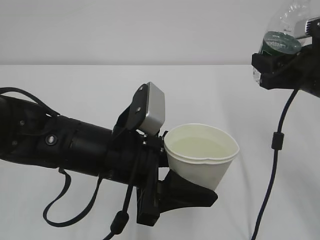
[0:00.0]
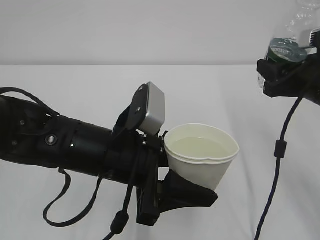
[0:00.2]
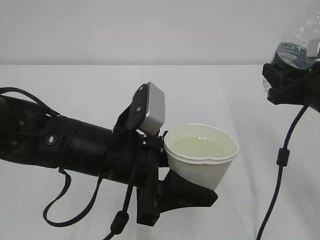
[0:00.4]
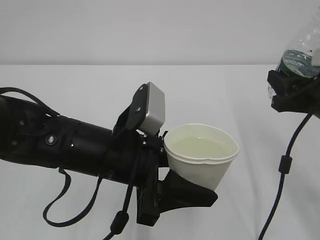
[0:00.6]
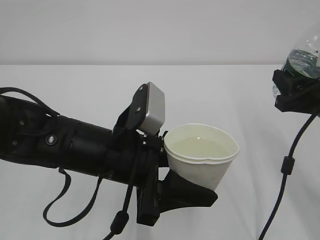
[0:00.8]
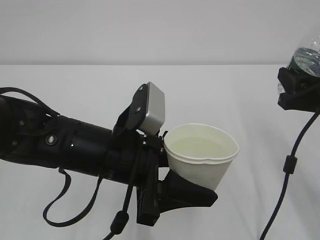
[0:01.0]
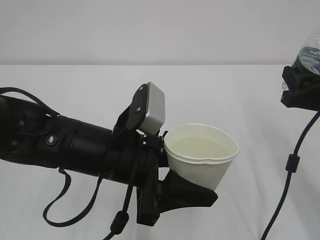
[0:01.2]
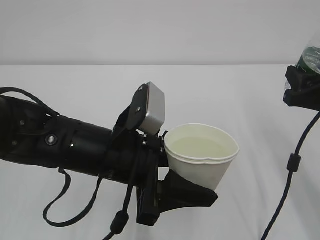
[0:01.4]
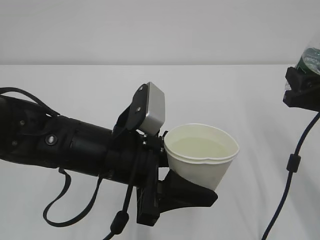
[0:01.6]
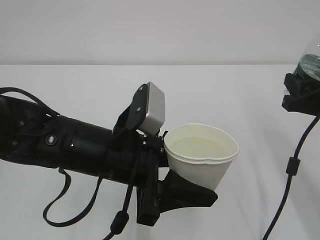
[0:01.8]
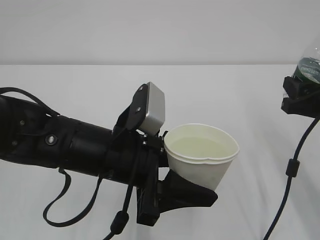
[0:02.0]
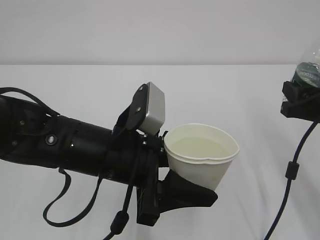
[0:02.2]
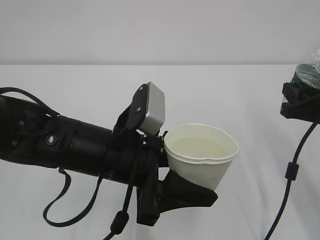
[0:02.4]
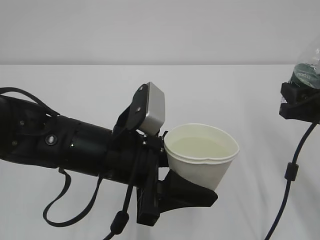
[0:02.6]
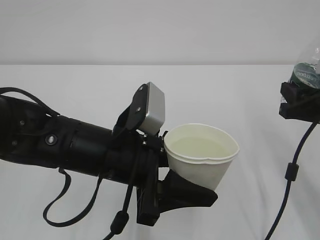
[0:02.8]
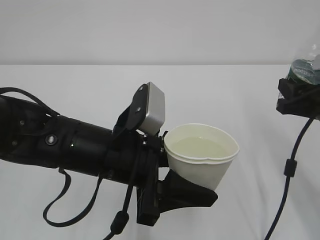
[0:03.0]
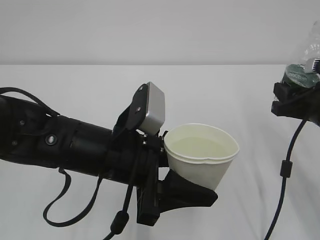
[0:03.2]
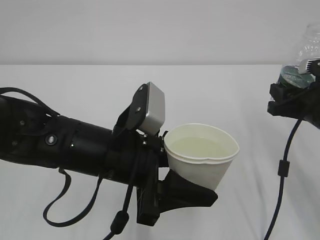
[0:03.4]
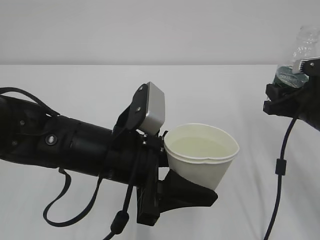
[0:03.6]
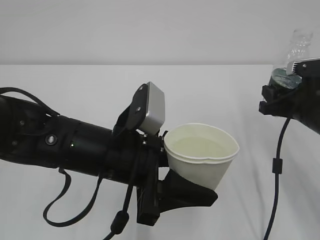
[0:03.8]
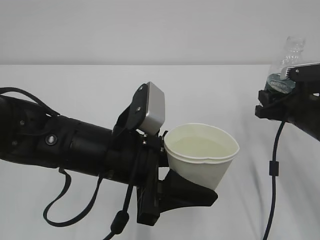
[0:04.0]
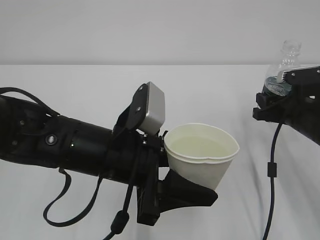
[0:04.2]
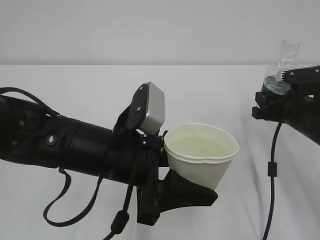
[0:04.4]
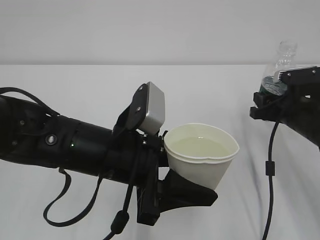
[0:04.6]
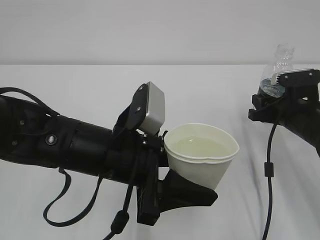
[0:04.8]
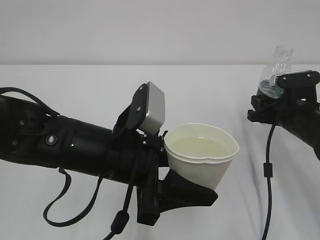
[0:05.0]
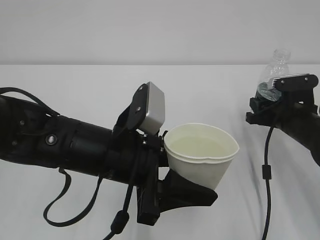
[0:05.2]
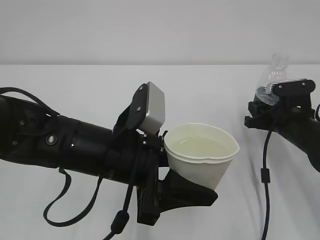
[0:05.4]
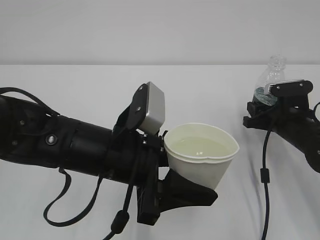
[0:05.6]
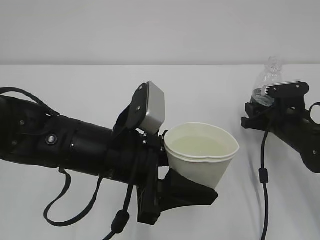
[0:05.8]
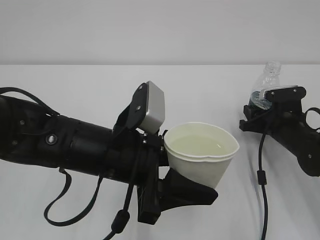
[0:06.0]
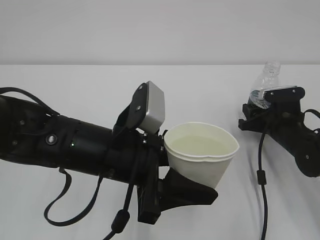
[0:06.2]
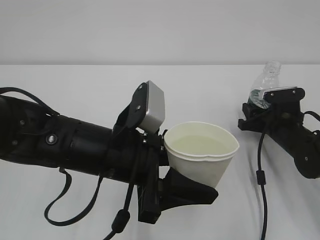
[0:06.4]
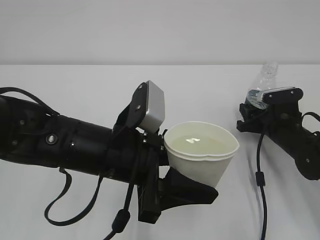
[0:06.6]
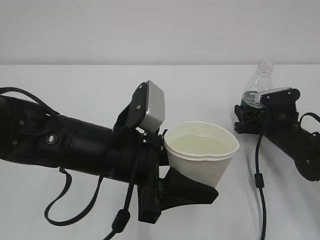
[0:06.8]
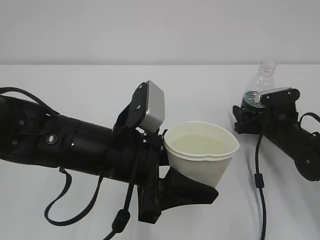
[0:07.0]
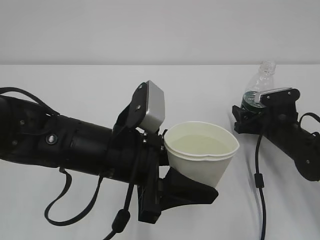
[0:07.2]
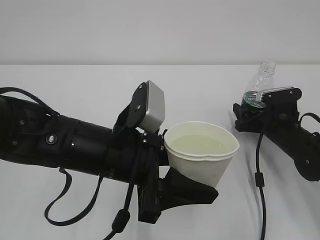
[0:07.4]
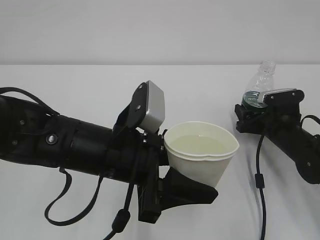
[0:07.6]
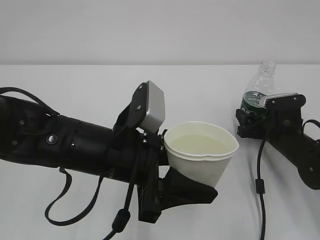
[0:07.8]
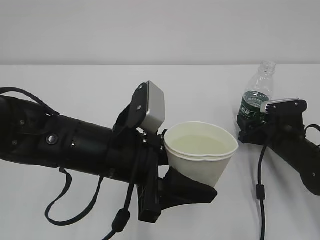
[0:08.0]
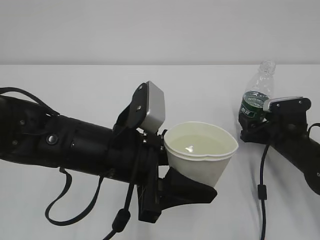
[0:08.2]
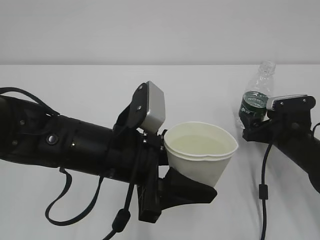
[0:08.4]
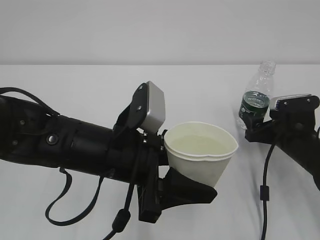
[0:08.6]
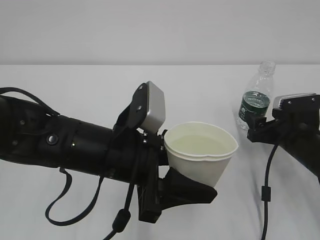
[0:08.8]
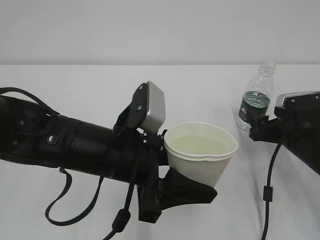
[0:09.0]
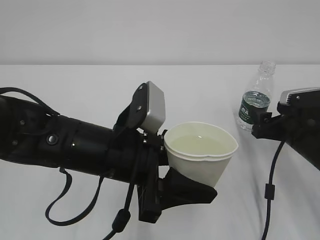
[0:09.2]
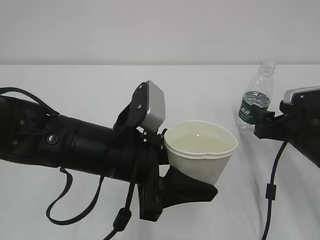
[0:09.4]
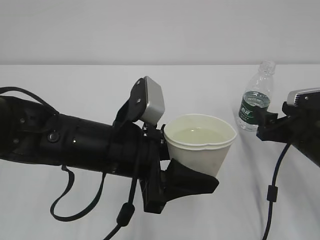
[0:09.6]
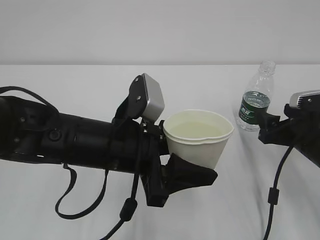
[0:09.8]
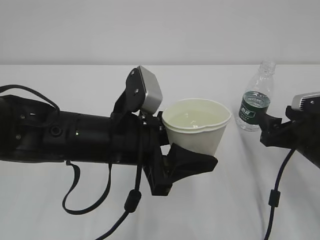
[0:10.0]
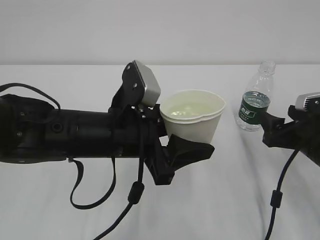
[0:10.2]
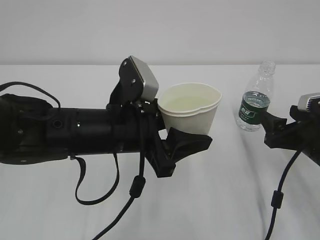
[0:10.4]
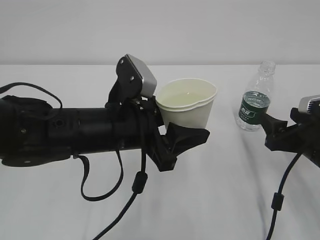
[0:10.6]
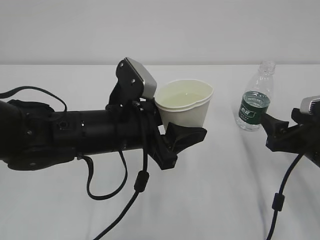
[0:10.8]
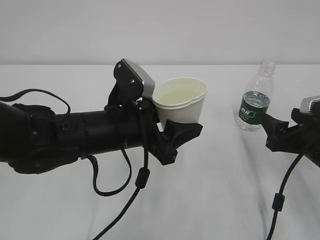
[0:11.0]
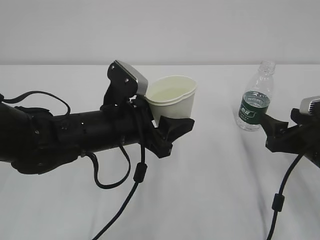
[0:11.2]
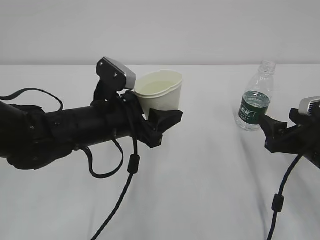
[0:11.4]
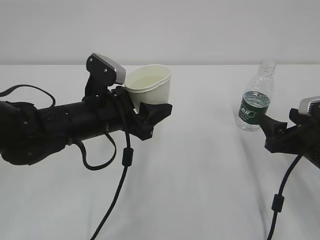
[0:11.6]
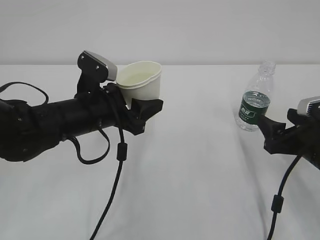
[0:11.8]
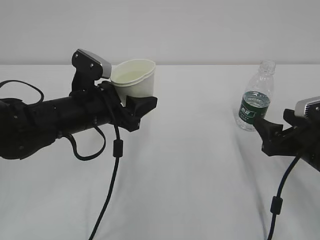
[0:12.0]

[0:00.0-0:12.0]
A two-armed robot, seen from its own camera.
0:00.0 to 0:01.6: The right gripper ends up roughly 5 cm from where it was.
0:01.6 to 0:03.0: The grippers move only a little.
0:03.0 to 0:04.4: The right gripper is displaced forward and downward by about 10 cm.
0:04.4 to 0:06.0: The right gripper is displaced downward by roughly 5 cm.
0:06.0 to 0:07.6: The right gripper opens up.
0:07.6 to 0:09.0: The right gripper moves backward, some 5 cm.
0:09.0 to 0:10.4: The right gripper moves some 5 cm.
0:10.4 to 0:12.0: The left gripper shifts about 10 cm forward and to the left.

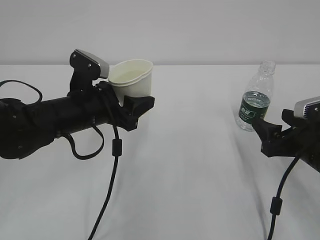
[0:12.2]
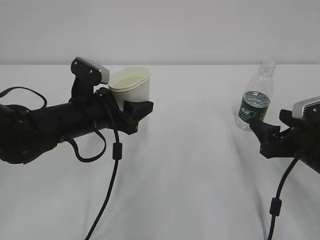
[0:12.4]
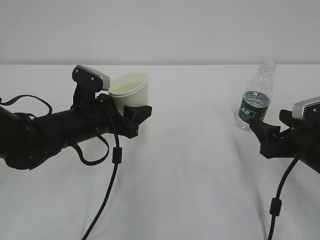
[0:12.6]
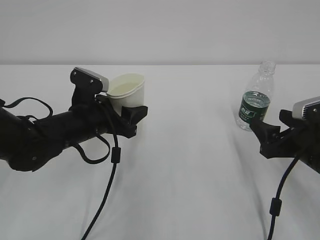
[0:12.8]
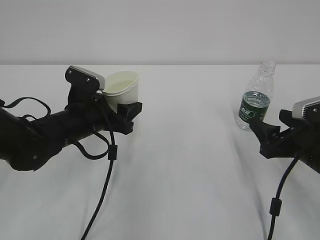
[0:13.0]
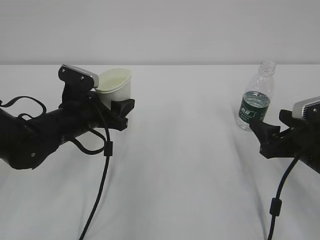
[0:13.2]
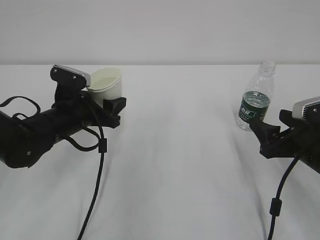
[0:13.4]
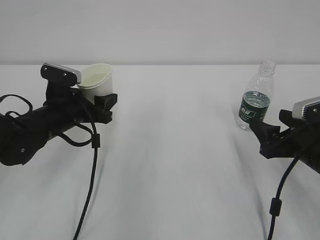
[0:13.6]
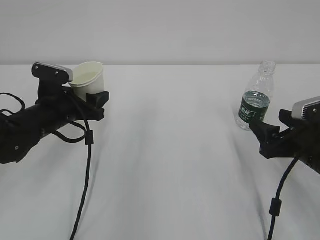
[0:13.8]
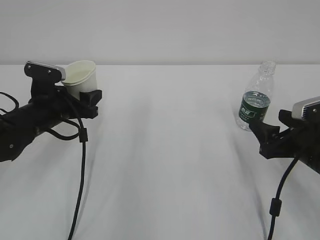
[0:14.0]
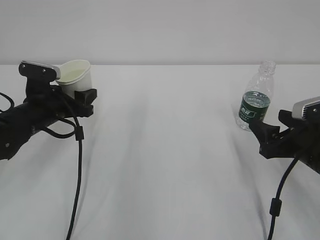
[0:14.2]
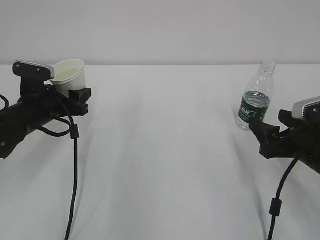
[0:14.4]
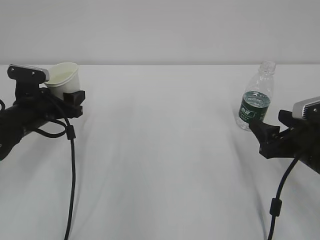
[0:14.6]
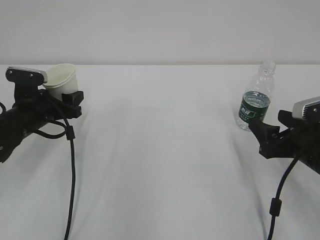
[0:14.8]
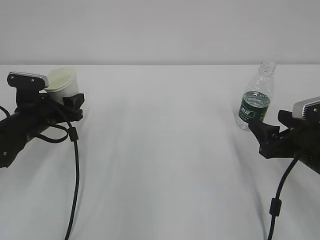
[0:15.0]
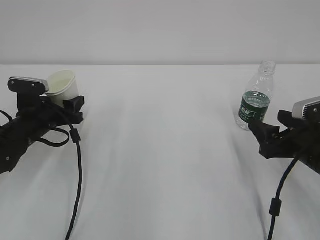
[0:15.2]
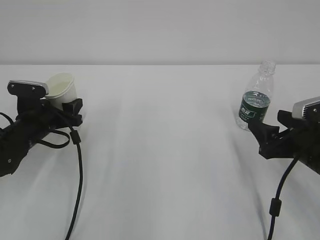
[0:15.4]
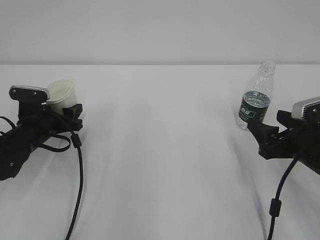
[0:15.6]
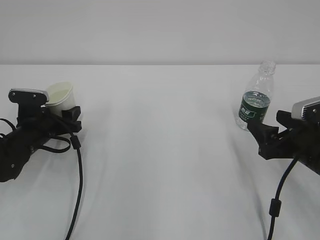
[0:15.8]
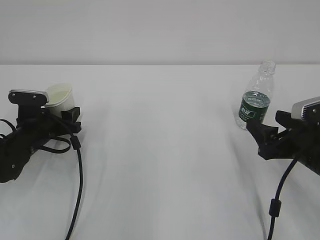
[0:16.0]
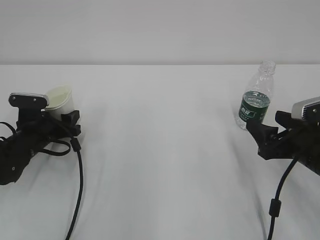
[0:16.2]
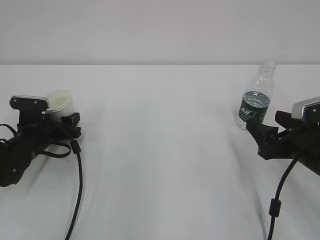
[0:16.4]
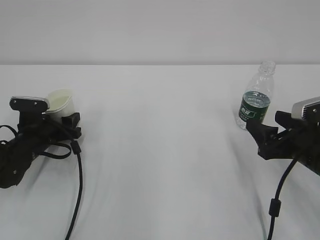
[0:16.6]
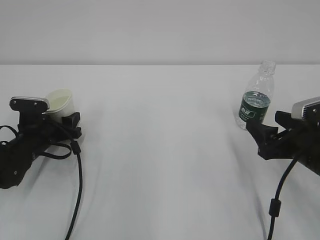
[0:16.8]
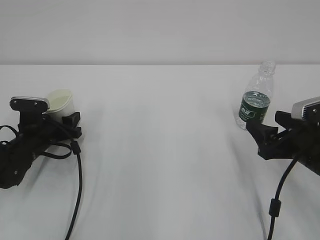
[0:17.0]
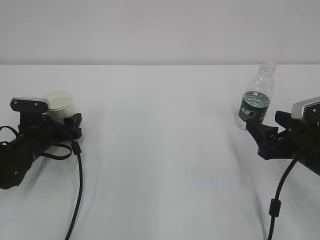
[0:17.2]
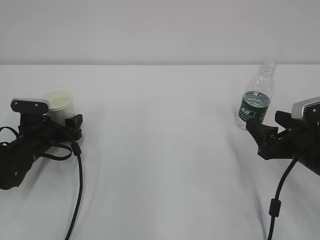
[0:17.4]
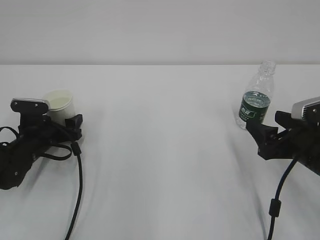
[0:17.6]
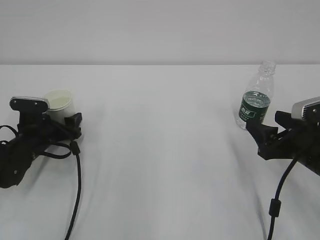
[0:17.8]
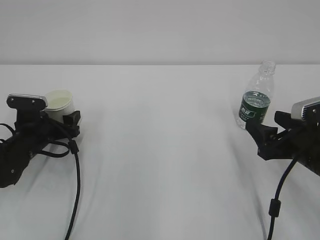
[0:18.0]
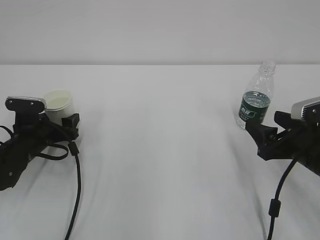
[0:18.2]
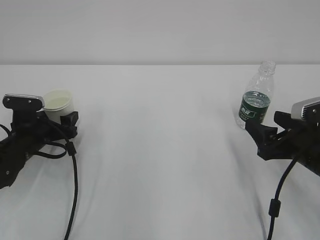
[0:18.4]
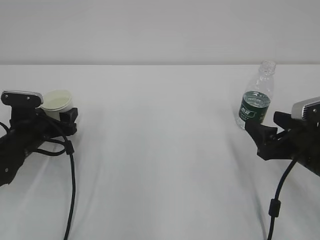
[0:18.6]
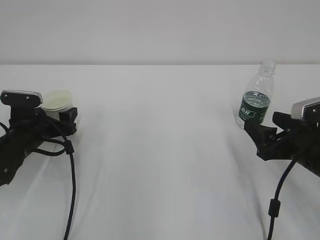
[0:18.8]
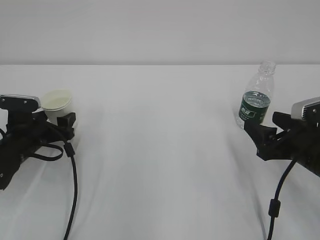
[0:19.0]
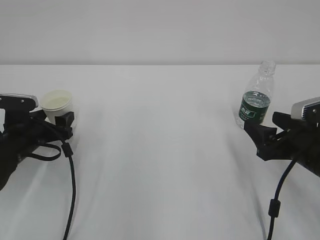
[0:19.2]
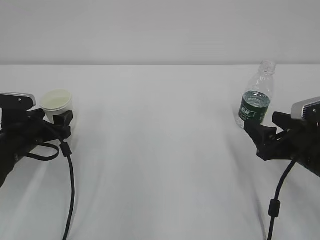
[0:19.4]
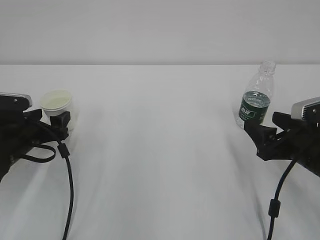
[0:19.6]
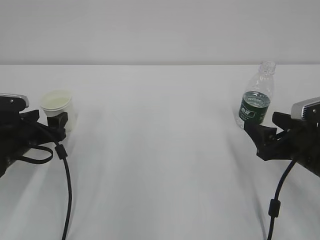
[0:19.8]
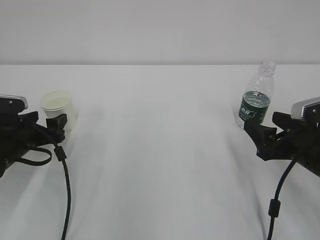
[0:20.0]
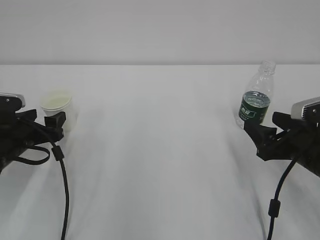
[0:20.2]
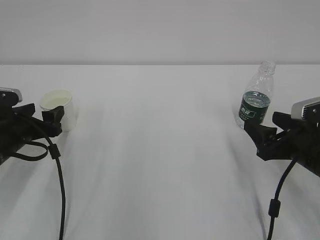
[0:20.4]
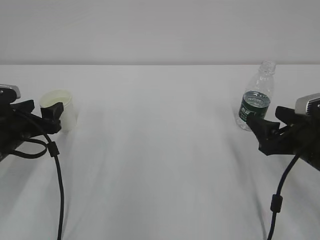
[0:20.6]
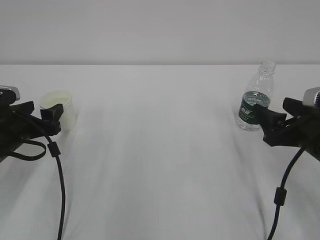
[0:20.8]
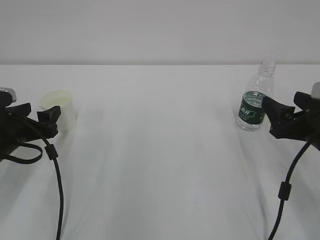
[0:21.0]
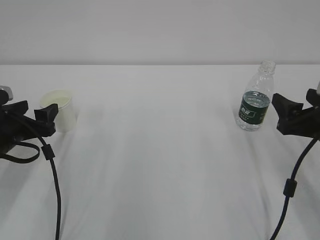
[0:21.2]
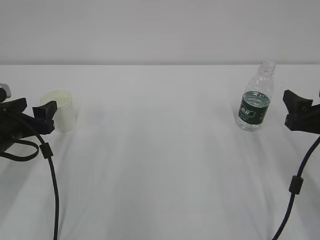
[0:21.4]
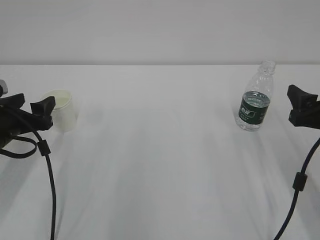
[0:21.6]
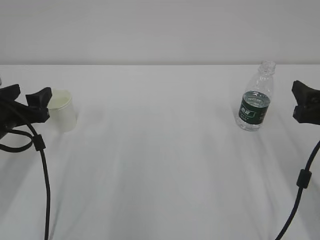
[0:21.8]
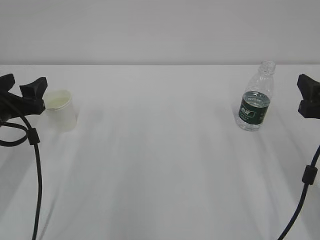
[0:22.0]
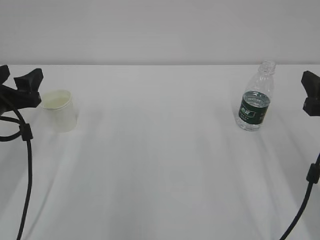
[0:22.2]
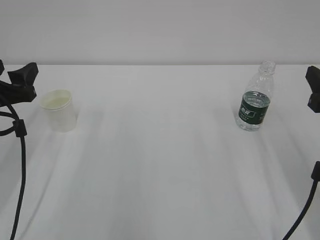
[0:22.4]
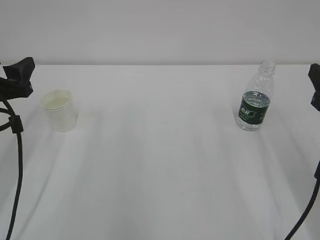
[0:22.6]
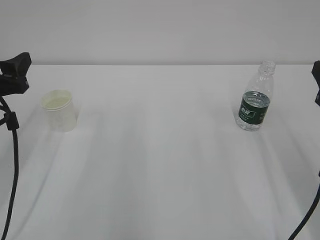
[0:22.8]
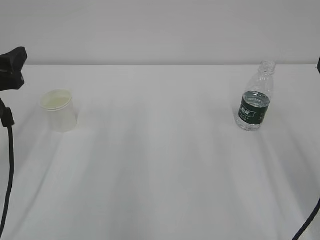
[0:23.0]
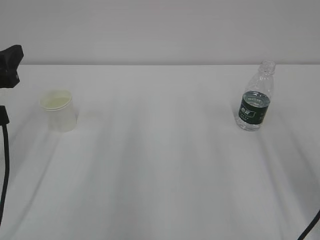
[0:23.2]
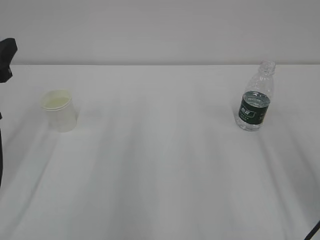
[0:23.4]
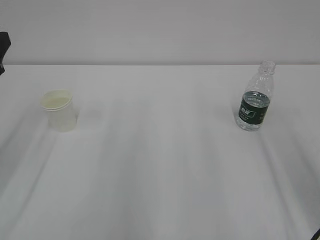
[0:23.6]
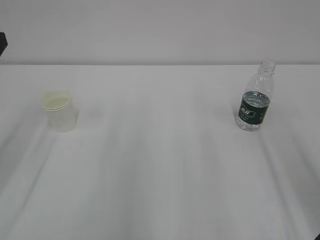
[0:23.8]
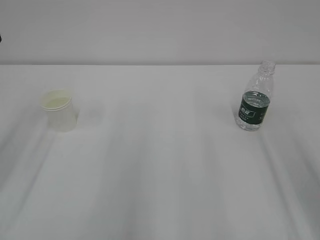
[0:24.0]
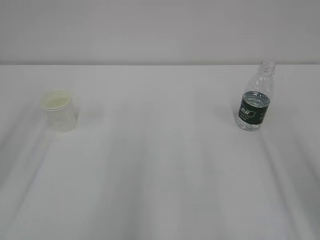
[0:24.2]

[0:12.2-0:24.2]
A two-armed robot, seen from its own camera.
0:12.2 to 0:13.8: The left gripper moves to the left, roughly 5 cm.
0:13.8 to 0:15.2: The left gripper heads to the left, covering about 5 cm.
0:15.2 to 0:16.6: The grippers make only small movements.
0:16.6 to 0:18.2: The left gripper opens its fingers.
0:18.2 to 0:19.8: The left gripper moves about 5 cm.
0:19.8 to 0:21.2: There are only small adjustments of the grippers.
0:21.2 to 0:22.6: Both grippers travel together upward, about 10 cm.
0:22.6 to 0:24.2: The two grippers go approximately 10 cm upward and backward.
